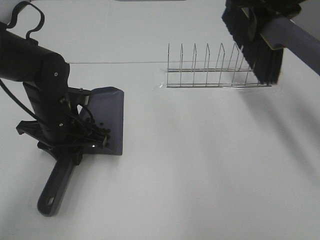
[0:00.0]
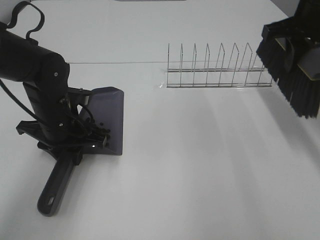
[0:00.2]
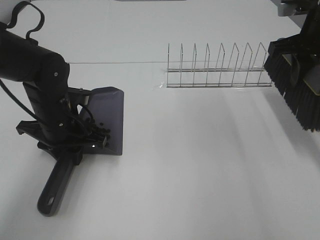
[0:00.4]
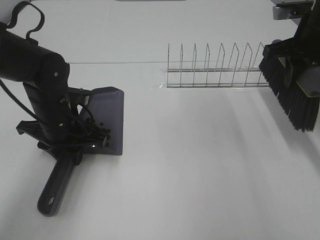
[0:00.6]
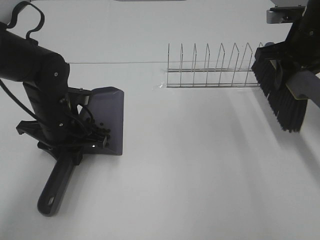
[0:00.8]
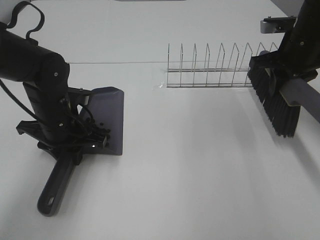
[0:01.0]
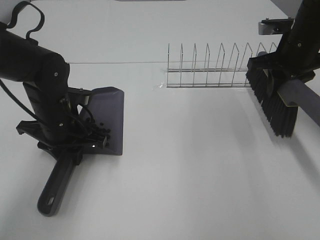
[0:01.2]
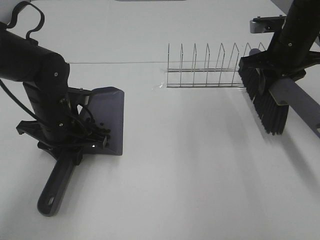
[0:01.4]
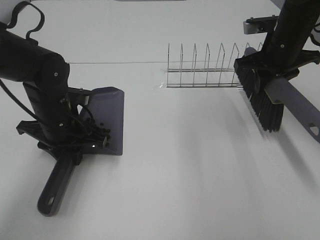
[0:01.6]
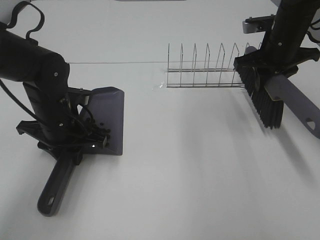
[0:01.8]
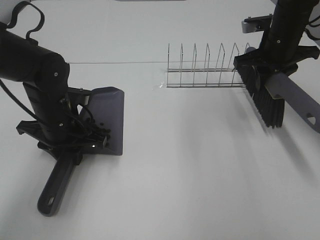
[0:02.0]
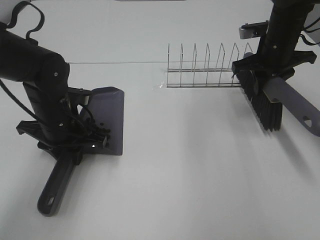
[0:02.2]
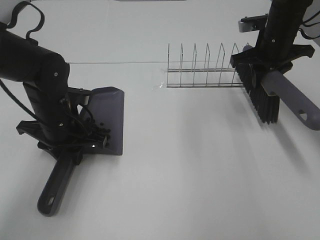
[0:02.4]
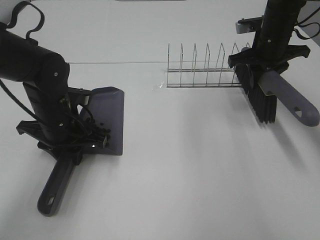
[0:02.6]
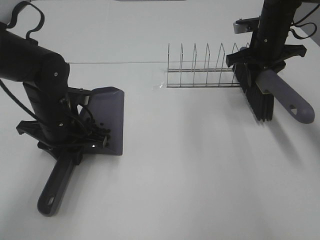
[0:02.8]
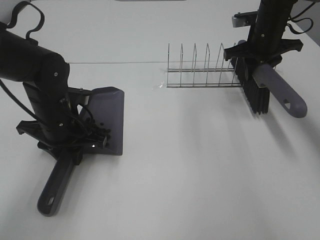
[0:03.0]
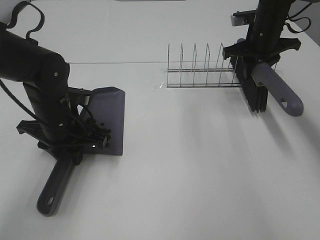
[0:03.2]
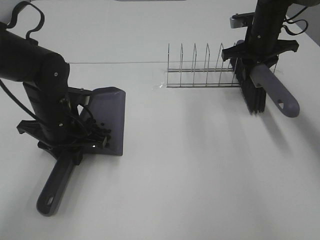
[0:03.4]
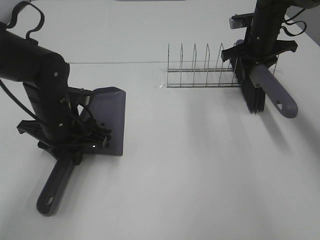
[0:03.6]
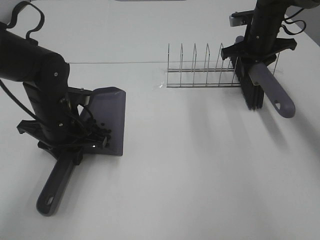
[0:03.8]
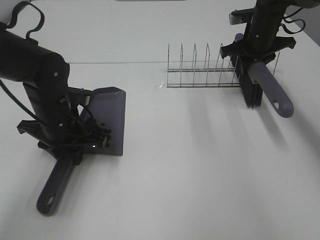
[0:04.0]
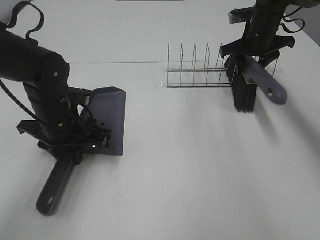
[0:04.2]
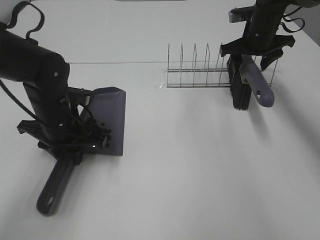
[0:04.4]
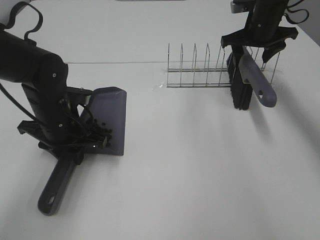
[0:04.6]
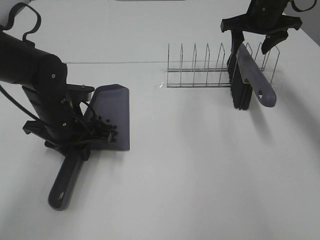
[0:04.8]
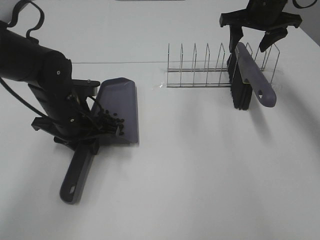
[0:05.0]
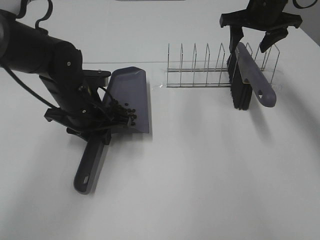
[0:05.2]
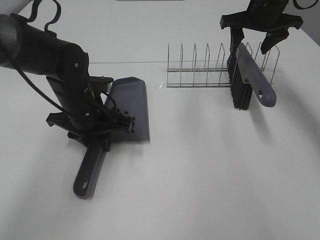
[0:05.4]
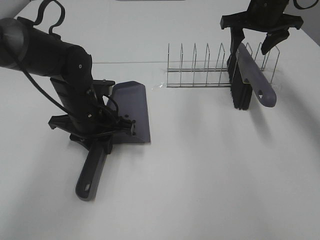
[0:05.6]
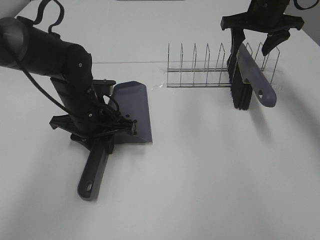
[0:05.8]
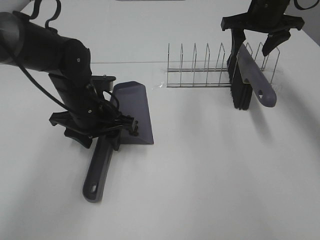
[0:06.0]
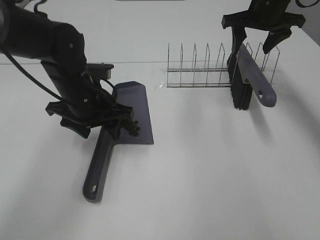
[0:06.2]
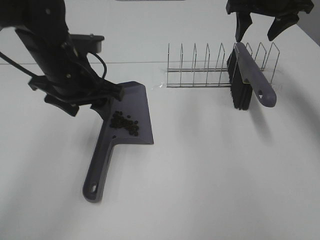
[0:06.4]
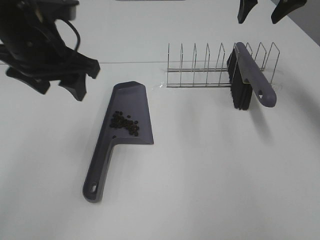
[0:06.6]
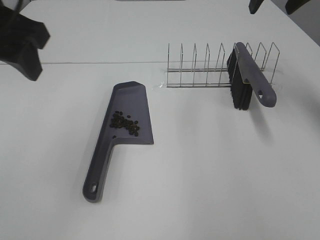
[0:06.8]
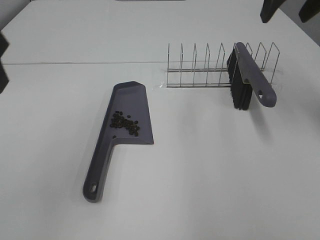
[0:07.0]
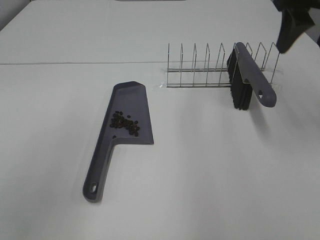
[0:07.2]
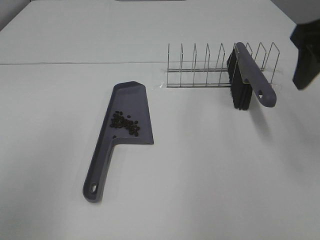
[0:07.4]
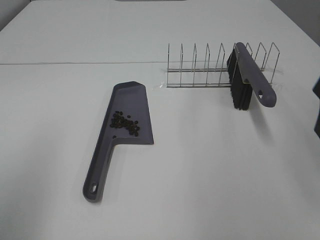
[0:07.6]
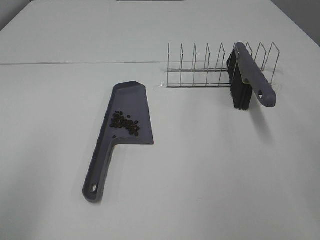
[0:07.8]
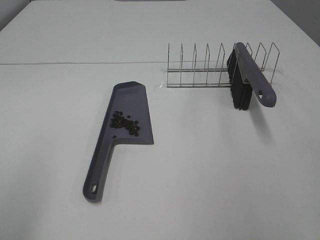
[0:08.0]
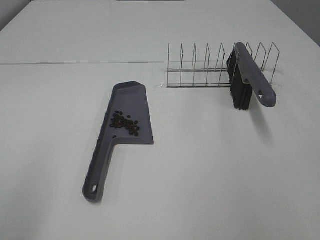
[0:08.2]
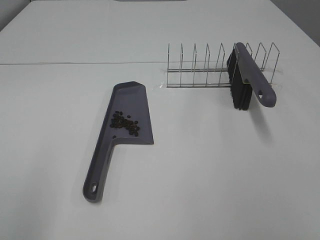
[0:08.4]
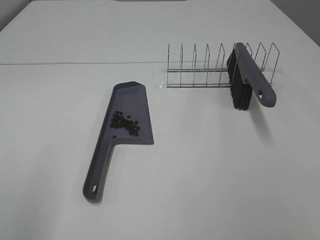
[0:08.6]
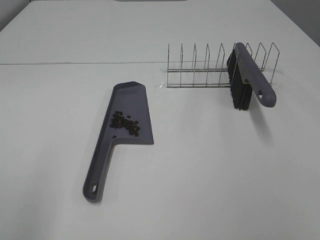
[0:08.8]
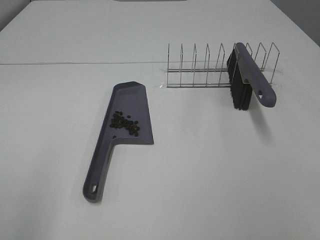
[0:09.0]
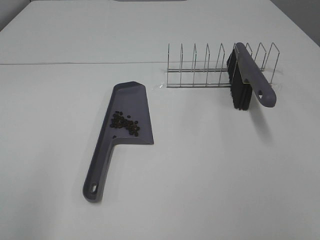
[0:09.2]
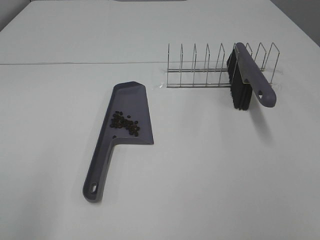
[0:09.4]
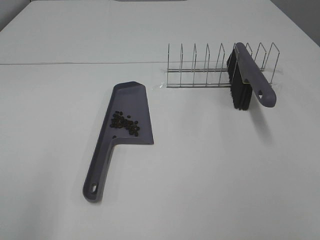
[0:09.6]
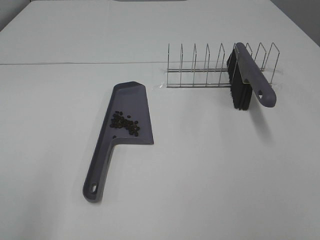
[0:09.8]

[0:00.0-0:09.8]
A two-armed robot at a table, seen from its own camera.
Task of the whole recording: Sweep Coffee Bean.
Step, 0:00.0 to 0:05.8: Right hand:place the broom on the rack.
Step, 0:06.0 to 0:06.2: Left hand:place the dustpan on the table.
0:00.0 to 0:01.4: The right gripper heads downward, covering approximately 10 cm.
0:01.4 to 0:02.8: The right gripper moves forward, about 5 cm.
0:02.8 to 0:04.2: The right gripper opens up.
0:04.2 to 0:05.6: The right gripper goes approximately 5 cm upward.
0:05.6 to 0:07.0: The left gripper is displaced upward and backward by about 30 cm, and opens, while the right gripper is displaced backward and upward by approximately 15 cm.
0:07.0 to 0:08.4: The right gripper goes about 30 cm backward; the left gripper shifts some 20 cm backward, downward and to the left.

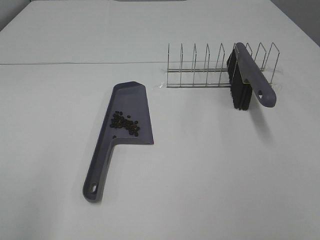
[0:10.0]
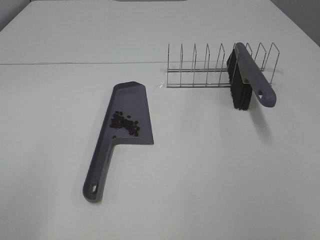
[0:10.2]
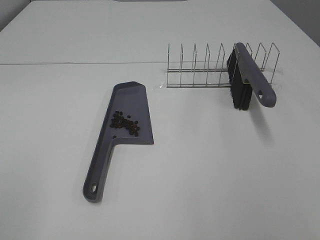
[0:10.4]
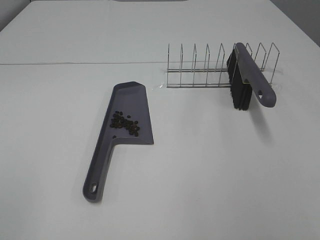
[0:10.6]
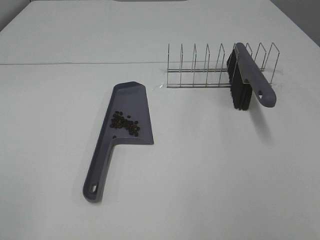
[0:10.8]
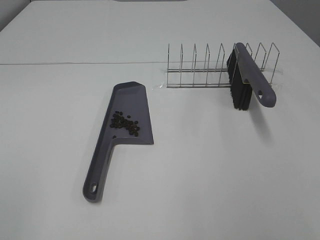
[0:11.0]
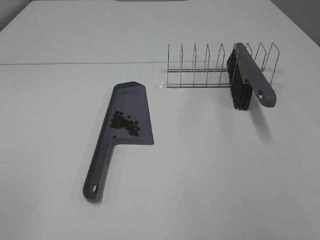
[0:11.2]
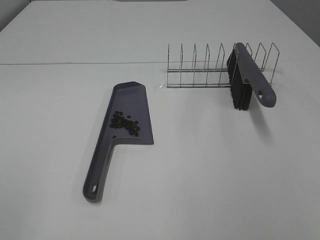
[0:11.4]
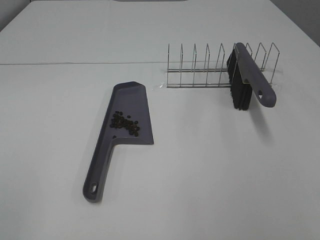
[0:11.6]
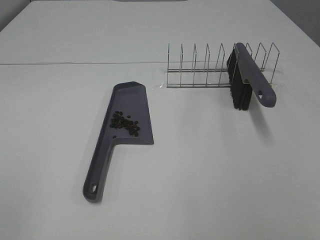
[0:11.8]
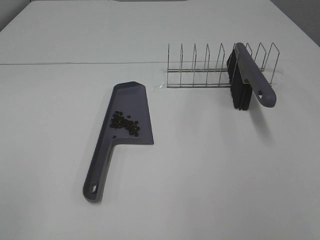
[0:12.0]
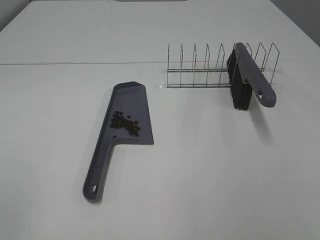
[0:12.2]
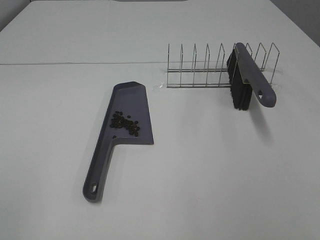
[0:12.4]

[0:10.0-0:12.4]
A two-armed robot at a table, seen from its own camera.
Task of the whole recording: Sweep Coffee Bean.
0:11.2 to 0:12.4: The two grippers keep their place.

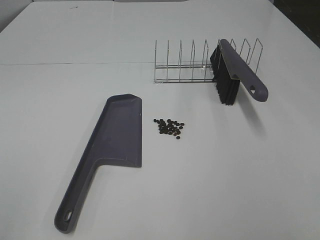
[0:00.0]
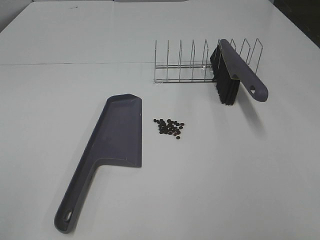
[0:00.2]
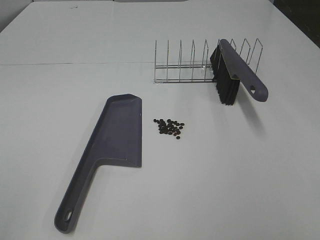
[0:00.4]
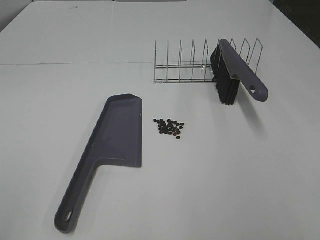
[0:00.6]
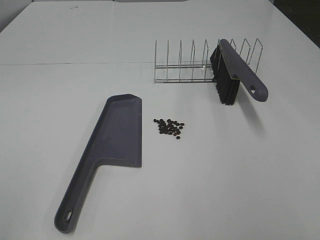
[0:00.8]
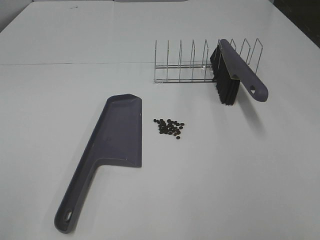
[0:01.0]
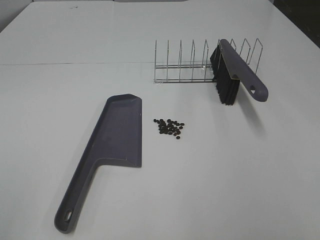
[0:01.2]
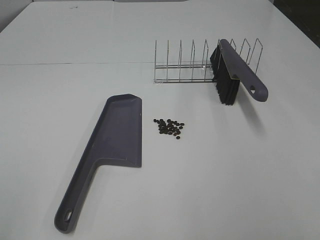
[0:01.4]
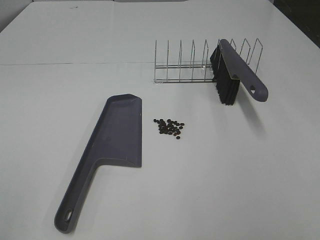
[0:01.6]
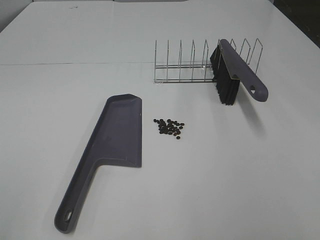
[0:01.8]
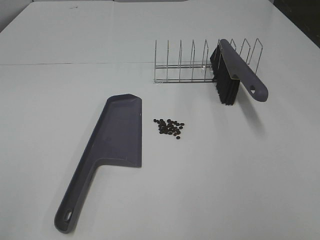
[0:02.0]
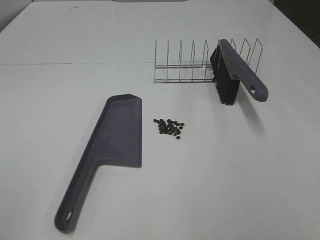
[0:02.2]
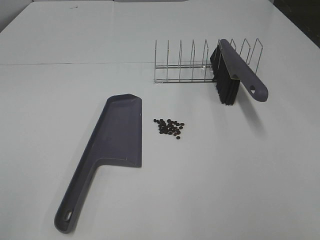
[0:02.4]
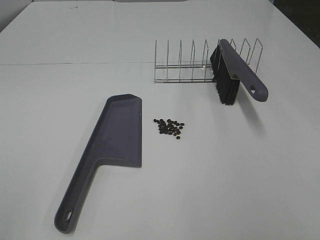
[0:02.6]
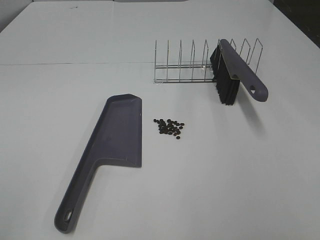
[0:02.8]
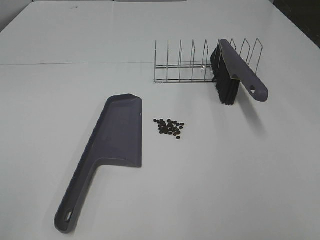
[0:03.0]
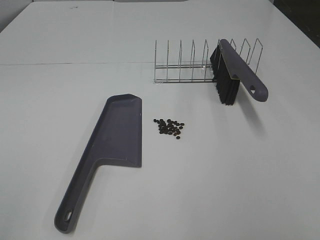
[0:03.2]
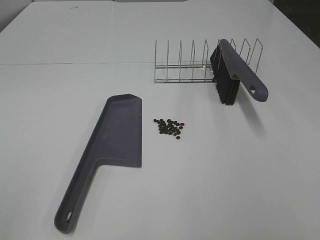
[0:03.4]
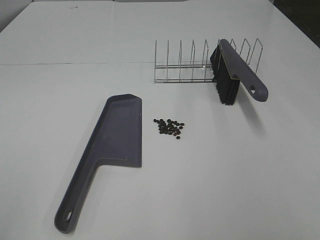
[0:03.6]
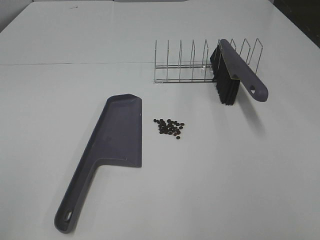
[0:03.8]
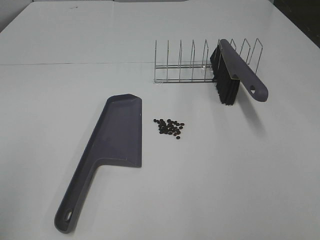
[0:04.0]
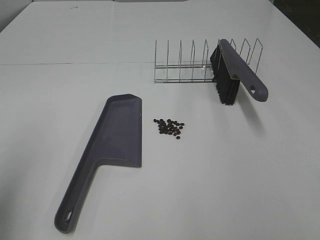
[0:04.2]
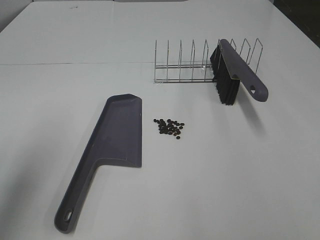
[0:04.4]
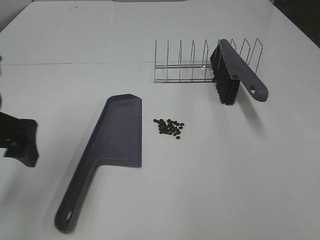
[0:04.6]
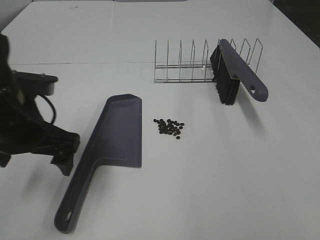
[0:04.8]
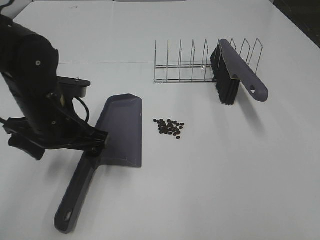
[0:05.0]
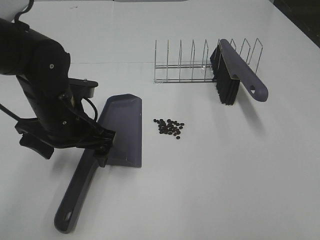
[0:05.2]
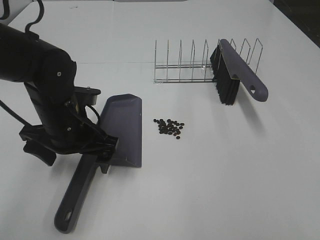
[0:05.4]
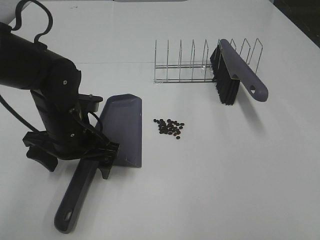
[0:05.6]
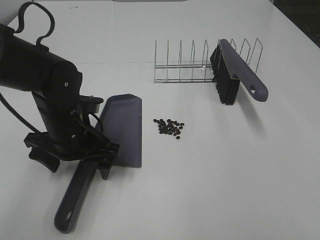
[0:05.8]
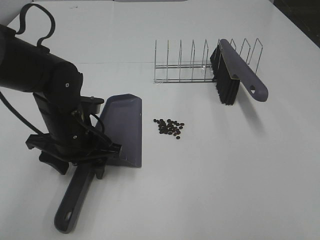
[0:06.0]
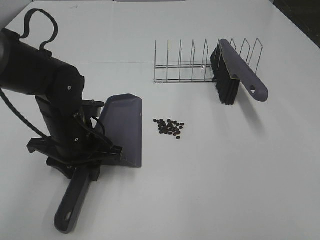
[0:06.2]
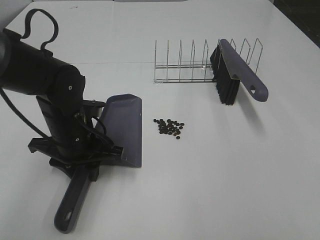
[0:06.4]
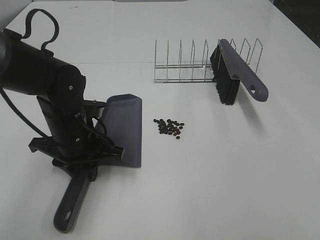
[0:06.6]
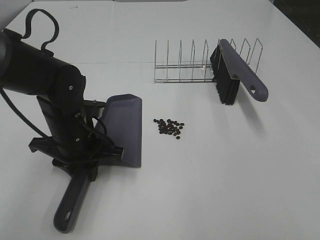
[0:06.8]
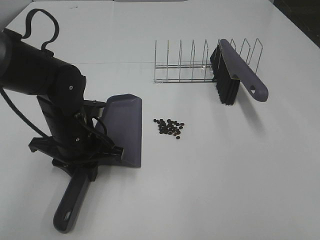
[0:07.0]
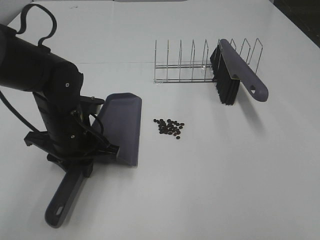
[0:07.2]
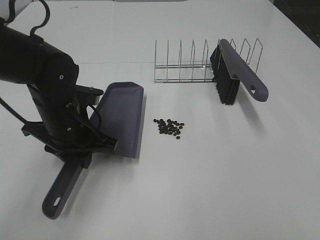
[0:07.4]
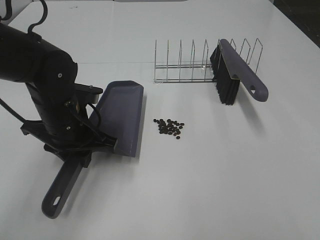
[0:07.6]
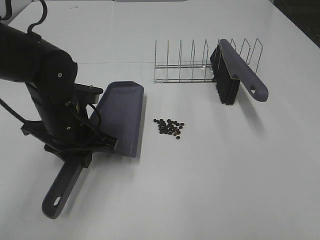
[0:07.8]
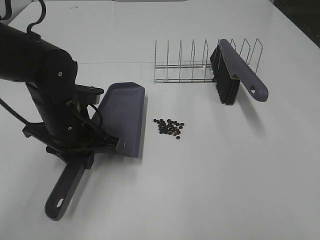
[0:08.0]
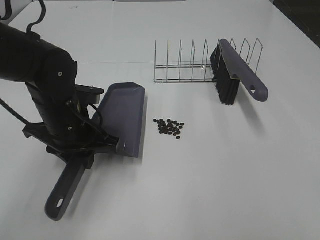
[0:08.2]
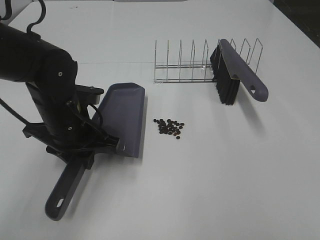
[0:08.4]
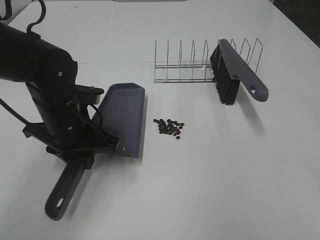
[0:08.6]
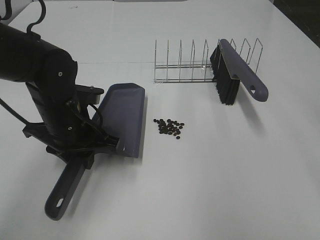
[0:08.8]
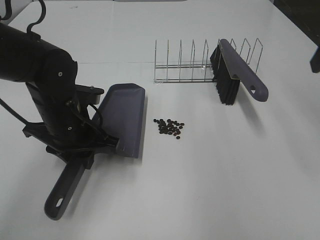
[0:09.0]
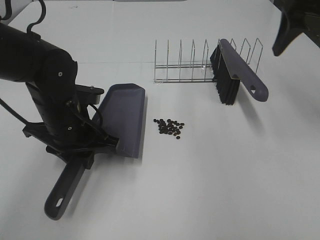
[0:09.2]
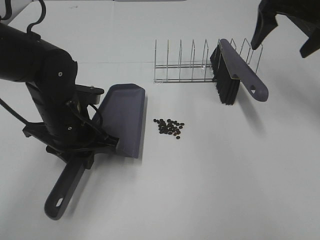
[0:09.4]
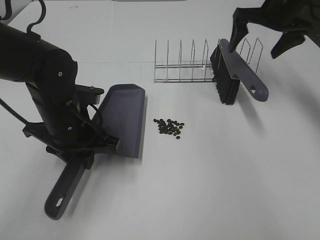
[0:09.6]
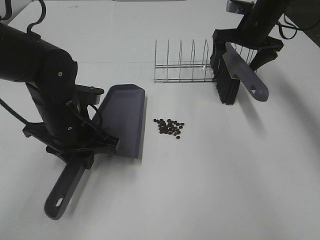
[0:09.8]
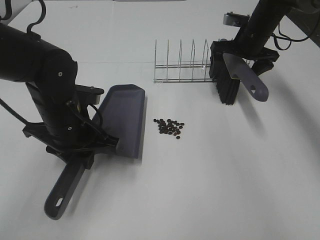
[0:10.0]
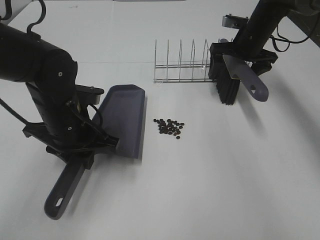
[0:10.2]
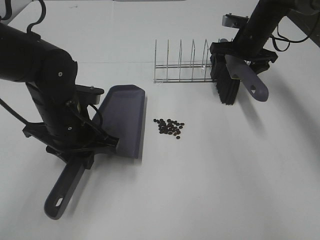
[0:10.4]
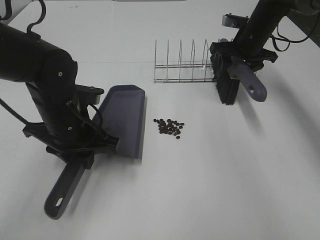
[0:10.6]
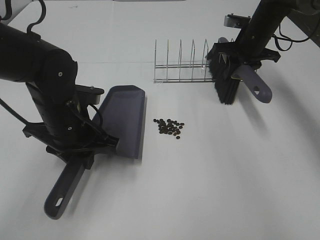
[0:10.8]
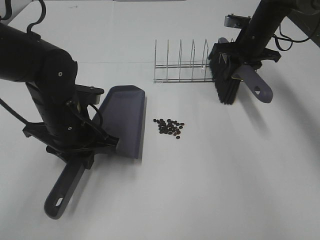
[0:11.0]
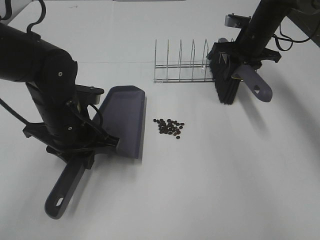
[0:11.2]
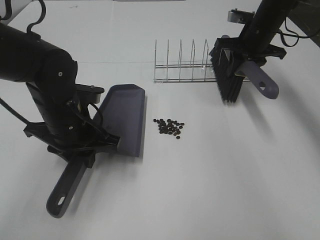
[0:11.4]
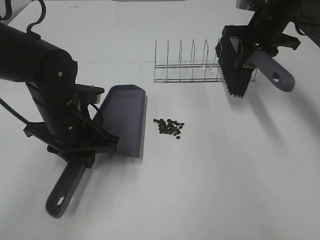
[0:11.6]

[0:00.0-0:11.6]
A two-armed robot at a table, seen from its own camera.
Task of the whole recording: Sweep Coffee Bean.
Step, 0:00.0 to 0:06.6: Left hand: grab the dustpan.
0:01.4 to 0:02.8: Both grippers stay put.
0:02.8 to 0:04.4: The left gripper goes some 20 cm forward.
0:04.4 to 0:05.8: The left gripper heads downward, to the right and forward, covering approximately 20 cm.
0:05.8 to 0:07.2: The left gripper closes up.
0:07.2 to 0:08.8: The right gripper travels forward by about 20 cm, and opens its fingers.
0:08.8 to 0:10.2: The right gripper heads forward and downward, covering about 40 cm.
0:10.2 to 0:11.6: The right gripper travels upward by approximately 5 cm, and closes up.
